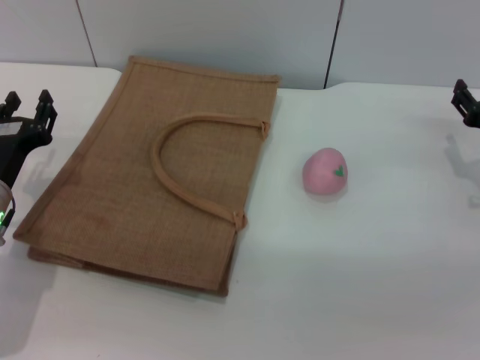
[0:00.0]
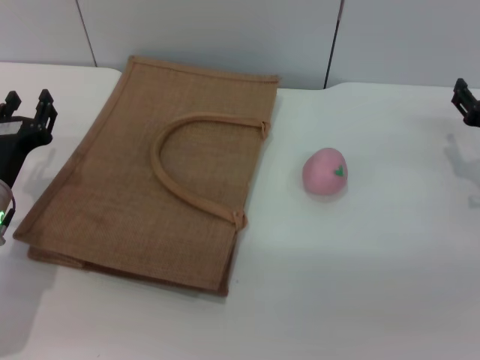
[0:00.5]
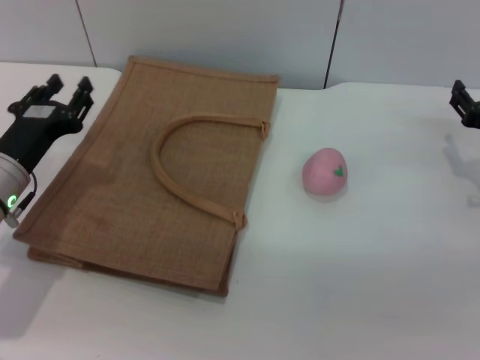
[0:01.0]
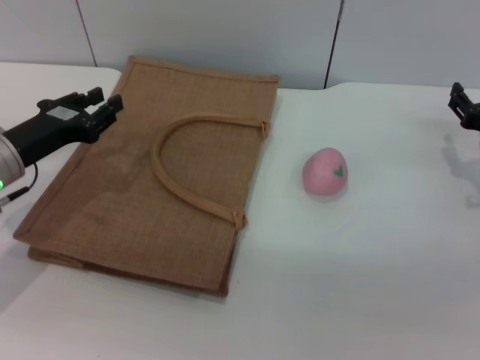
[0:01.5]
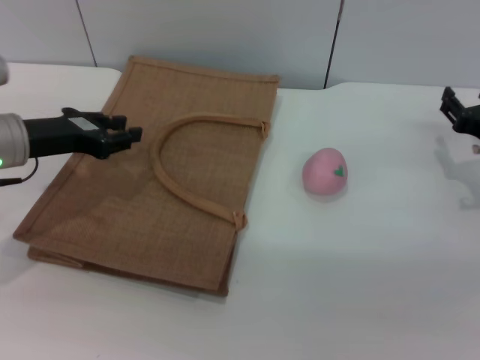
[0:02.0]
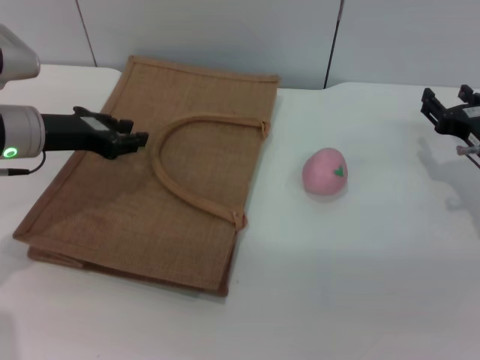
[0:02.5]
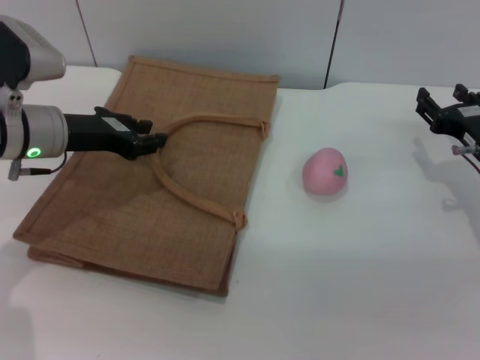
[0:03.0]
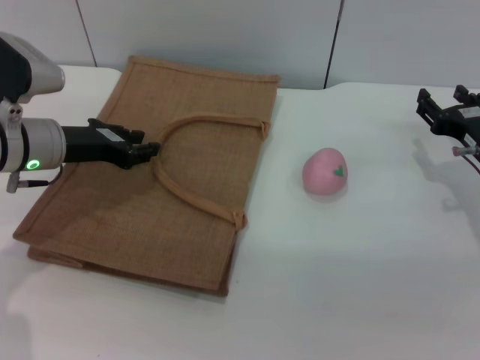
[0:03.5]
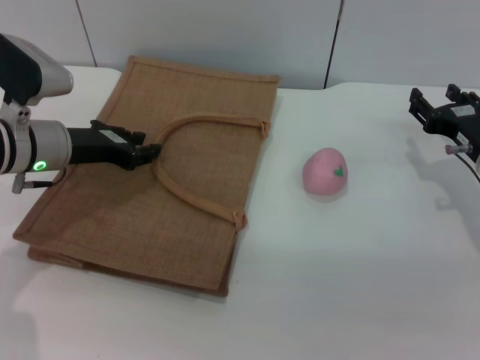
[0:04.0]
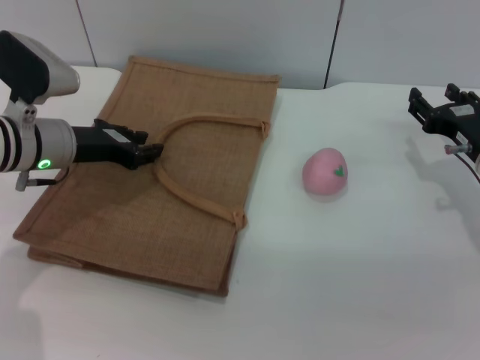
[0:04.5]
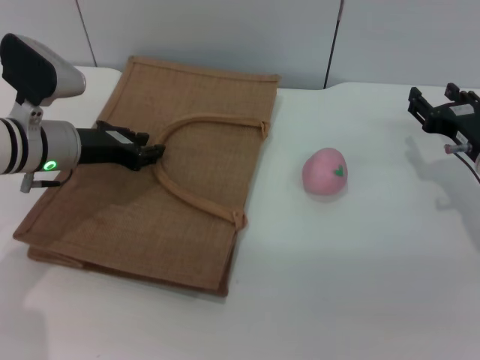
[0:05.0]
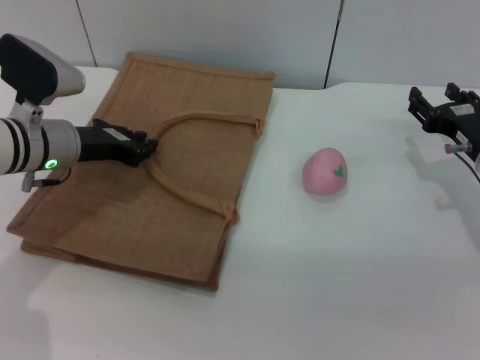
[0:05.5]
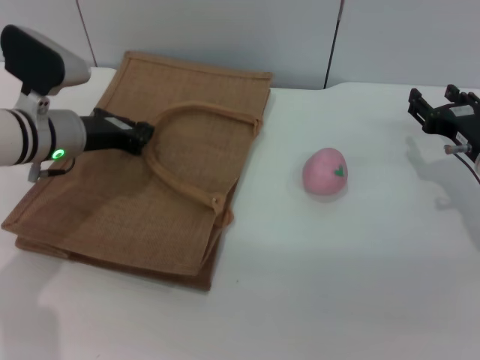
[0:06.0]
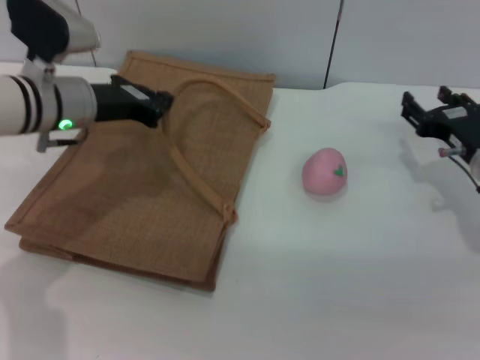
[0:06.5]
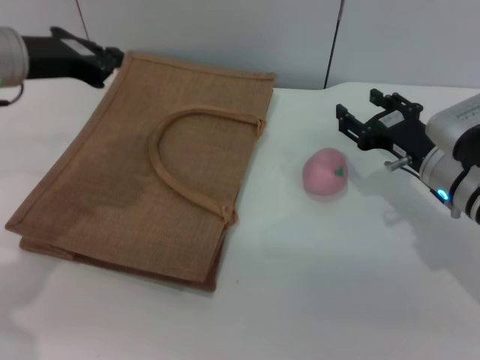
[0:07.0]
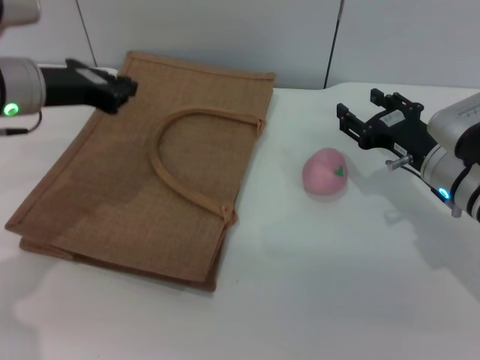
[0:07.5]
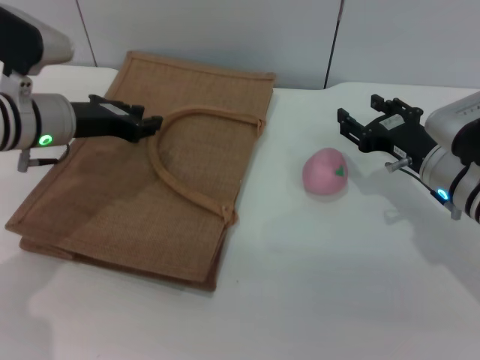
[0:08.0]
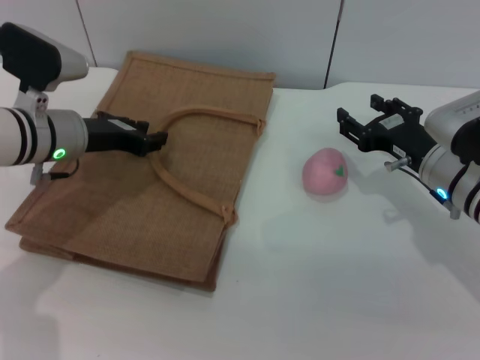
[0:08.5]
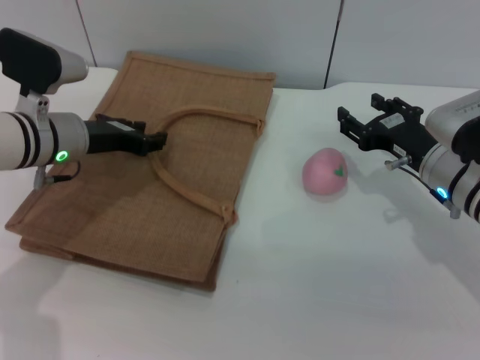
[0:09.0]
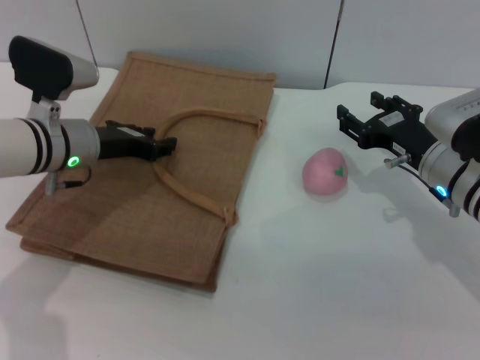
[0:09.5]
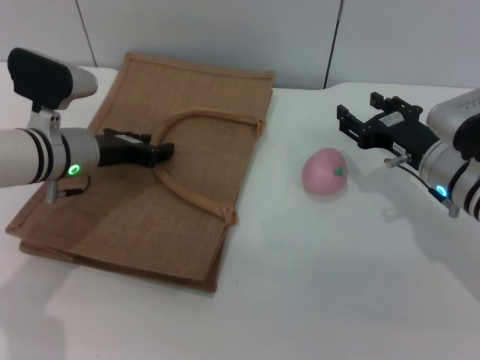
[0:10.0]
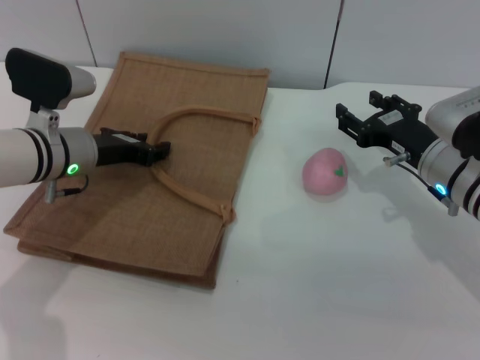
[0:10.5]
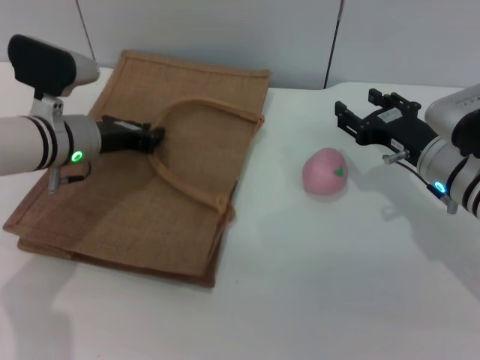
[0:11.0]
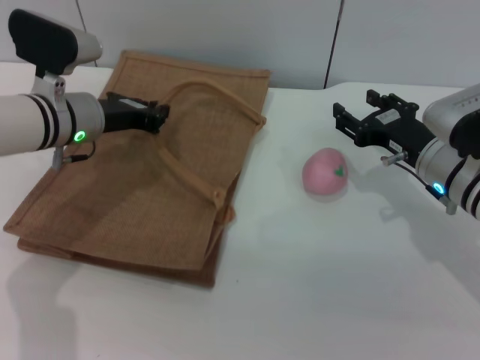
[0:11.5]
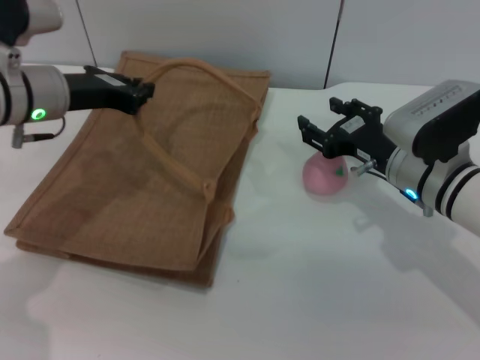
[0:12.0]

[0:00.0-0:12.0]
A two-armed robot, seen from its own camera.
Task of the whole recording: pick up the peach from the table and place it in the brown handbag.
Step, 0:00.0 to 0:11.5: Lift the woven bag with the left gripper to open it.
0:00.0 to 0:02.0: The left gripper heads upward and forward, covering about 10 cm.
0:02.0 to 0:04.0: There are only small adjustments of the grippers.
0:04.0 to 0:06.0: The left gripper closes up.
0:06.0 to 0:08.0: The right gripper is displaced to the left by roughly 5 cm; the left gripper goes upward and returns, roughly 10 cm each way.
0:08.0 to 0:10.0: The left gripper opens its fingers.
0:10.0 to 0:12.0: The left gripper moves upward, roughly 5 cm, and closes up.

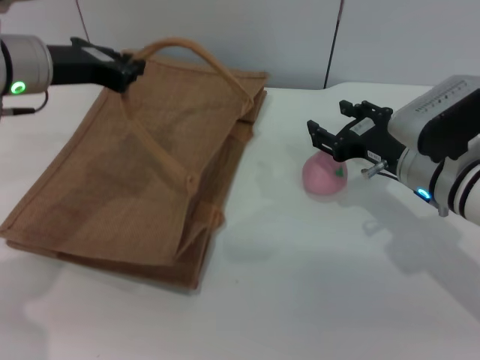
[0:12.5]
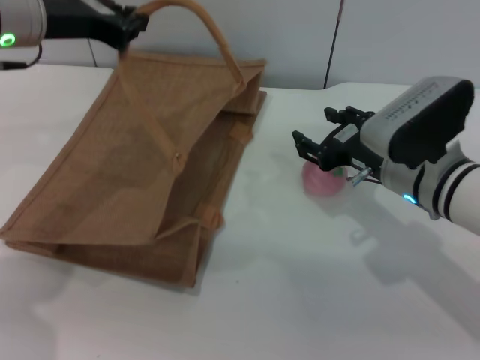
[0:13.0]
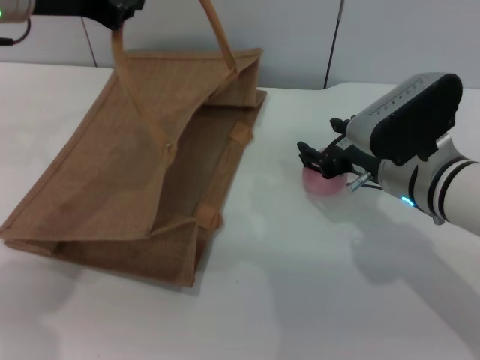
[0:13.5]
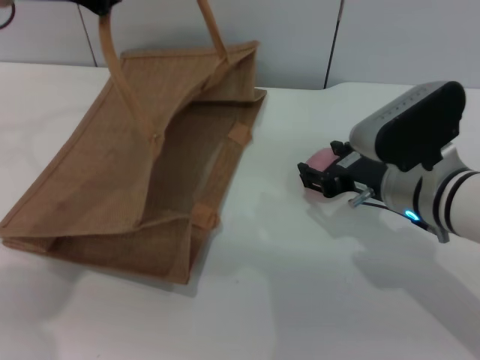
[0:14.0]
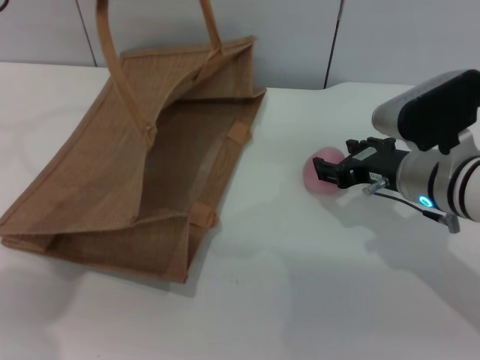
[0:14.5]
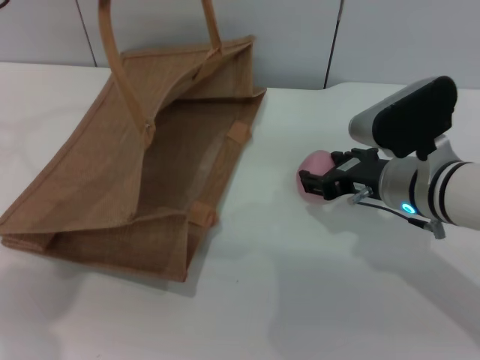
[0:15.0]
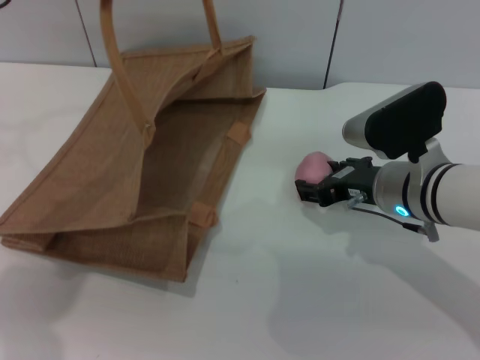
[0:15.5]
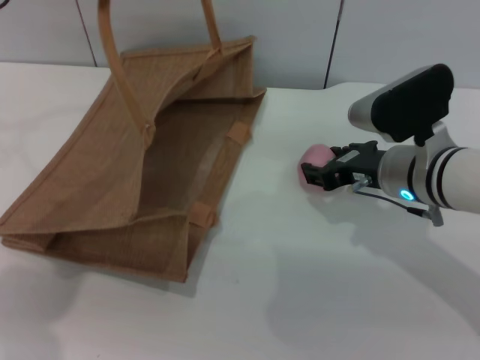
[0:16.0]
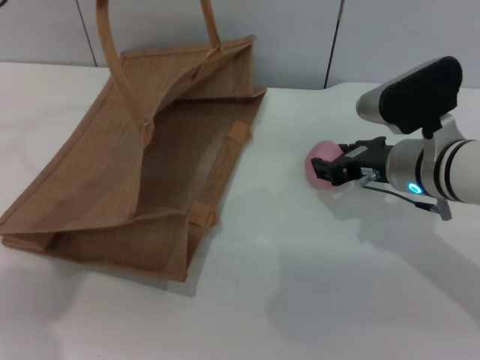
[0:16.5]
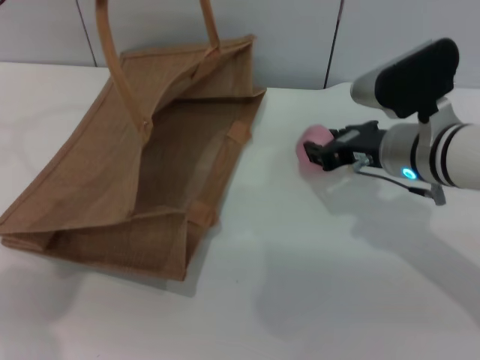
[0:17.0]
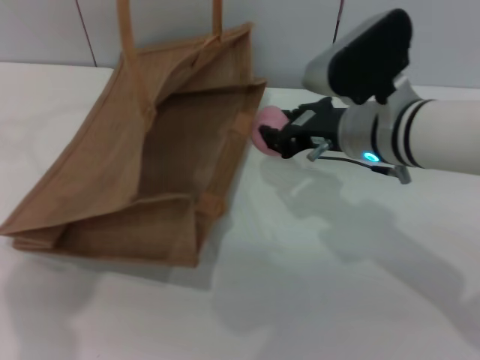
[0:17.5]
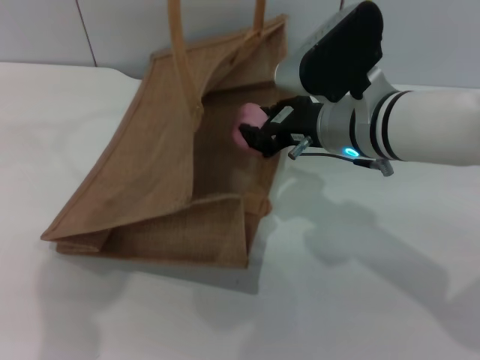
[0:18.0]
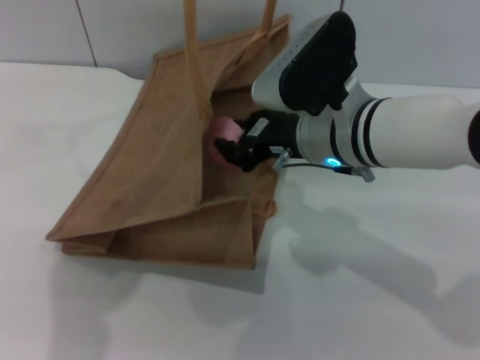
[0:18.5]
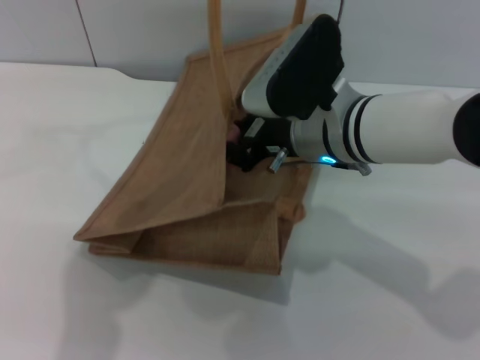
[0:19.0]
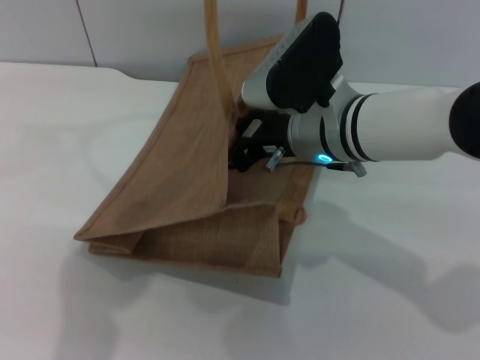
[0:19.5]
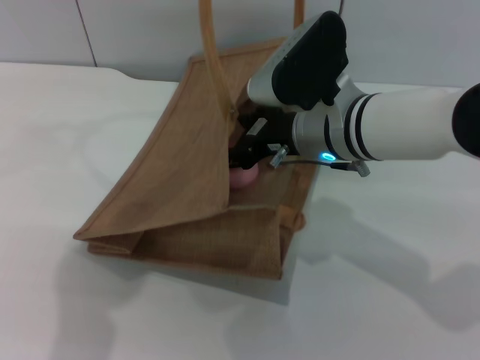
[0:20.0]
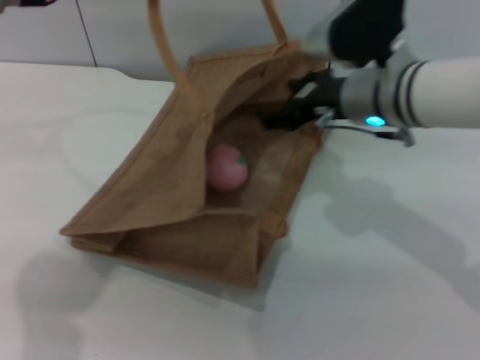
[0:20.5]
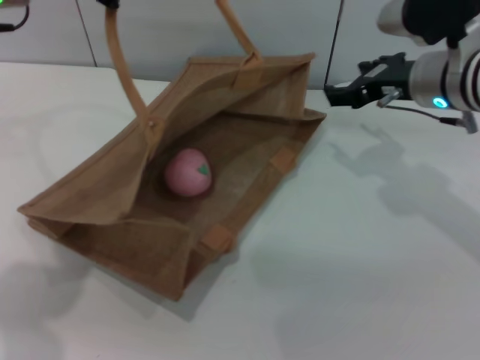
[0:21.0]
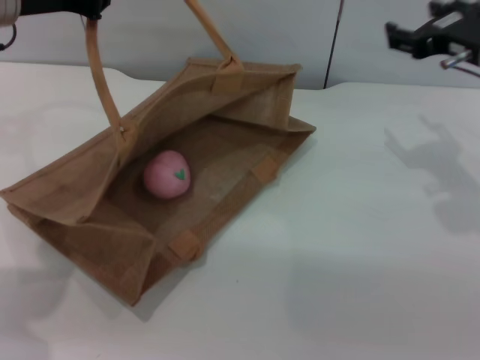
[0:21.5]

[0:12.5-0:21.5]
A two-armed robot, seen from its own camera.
Task of the whole recording: pick up the peach from the table and place it in the brown handbag.
Step, 0:12.5 to 0:17.0: Pick up the peach with the right gripper.
Step, 0:17.5 to 0:20.5: Place the peach into the woven bag with the right gripper.
0:12.5 to 0:14.5: The left gripper shifts approximately 10 cm upward.
0:14.5 to 0:17.0: The right gripper closes its fingers.
0:17.0 to 0:19.5: The right gripper shifts some 10 cm to the left. Meanwhile the left gripper shifts about 10 cm to the right.
0:19.5 to 0:21.5: The right gripper shifts about 15 cm to the right, and opens. The left gripper goes approximately 15 cm to the left and downward.

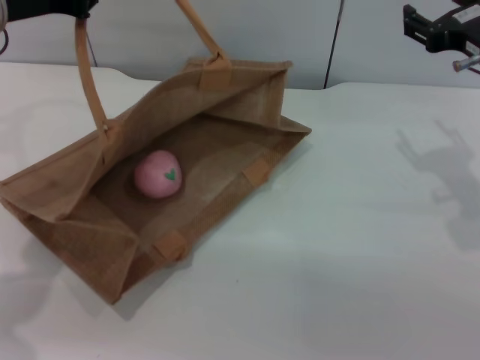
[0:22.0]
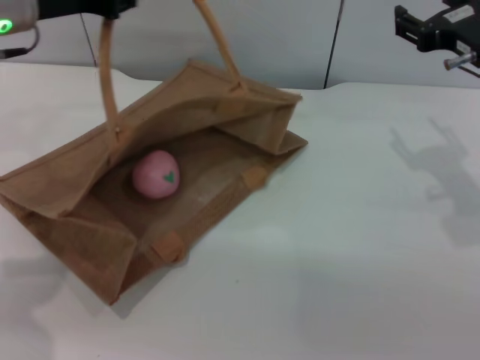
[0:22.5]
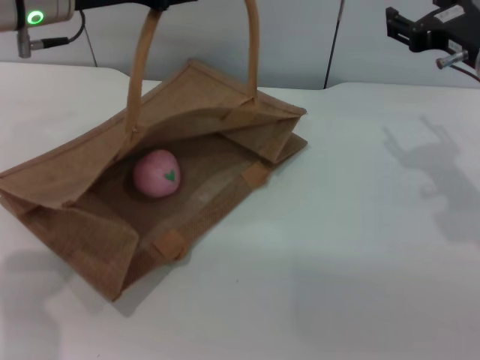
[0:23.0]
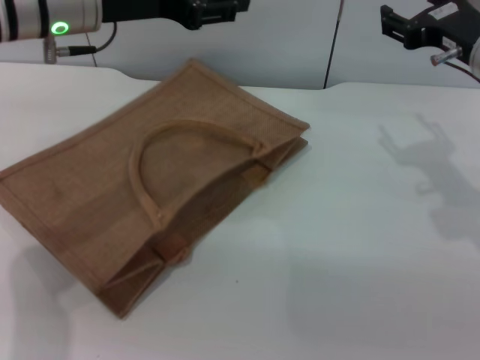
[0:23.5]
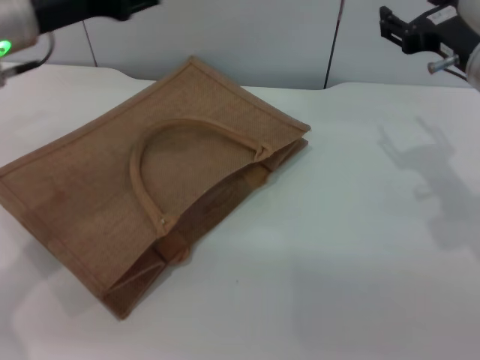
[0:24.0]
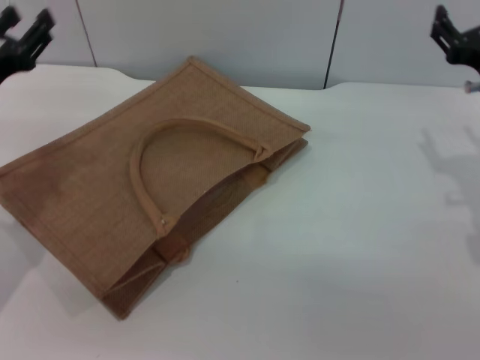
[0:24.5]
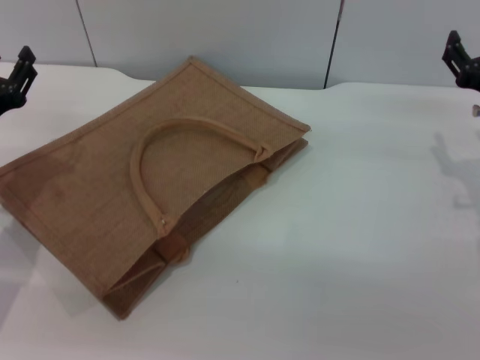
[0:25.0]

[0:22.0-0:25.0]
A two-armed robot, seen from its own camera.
Task of the whole recording: pick up the peach from the table and place it in the brown handbag.
Step, 0:22.0 to 0:23.5: Lower the woven bag with the left gripper to close it.
0:22.0 to 0:23.5: The left gripper moves to the right, roughly 5 cm, and opens its fingers.
0:23.5 to 0:25.0: The right gripper goes roughly 10 cm downward, while the left gripper goes about 20 cm downward, to the left and backward.
